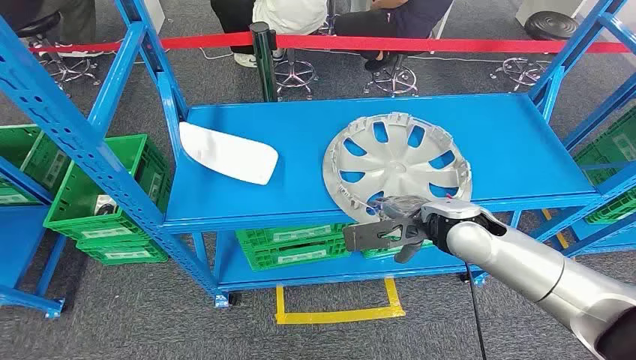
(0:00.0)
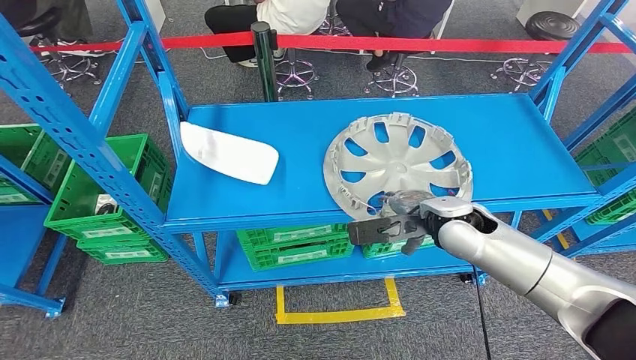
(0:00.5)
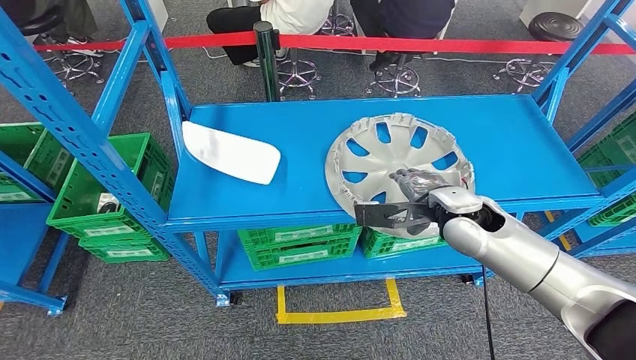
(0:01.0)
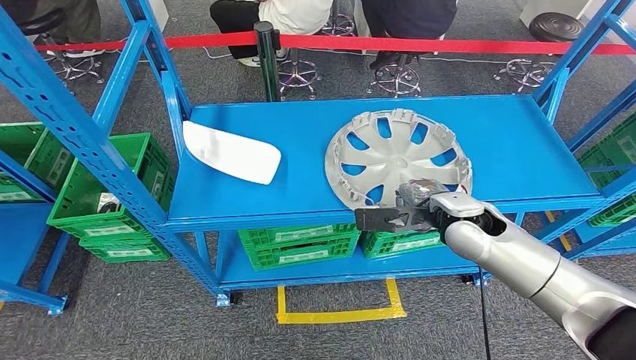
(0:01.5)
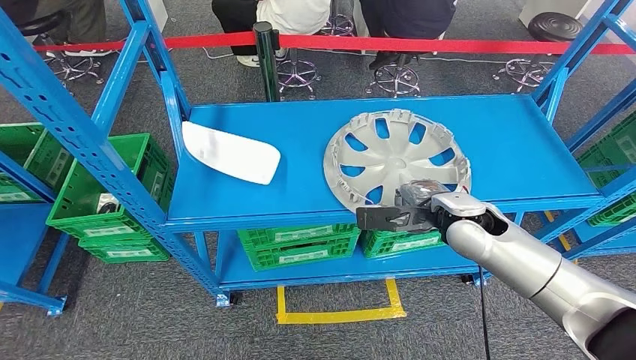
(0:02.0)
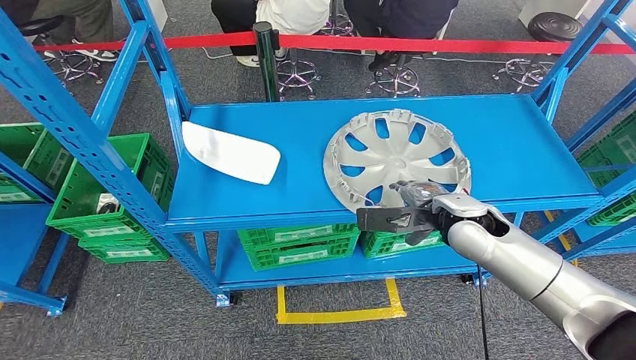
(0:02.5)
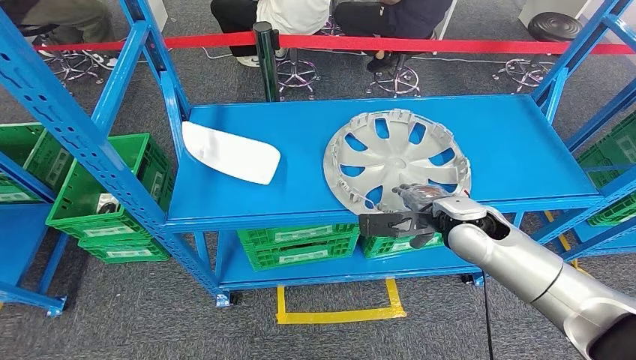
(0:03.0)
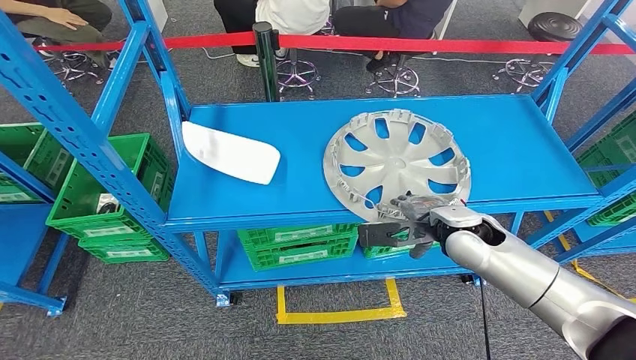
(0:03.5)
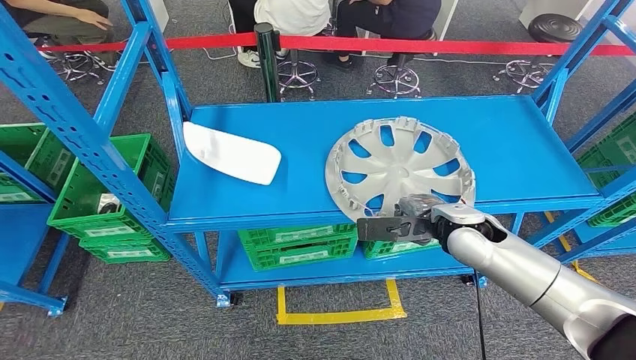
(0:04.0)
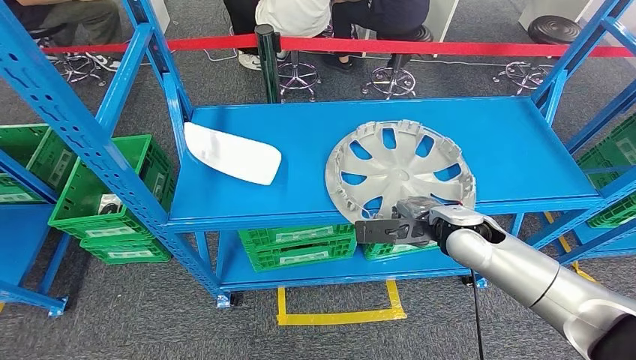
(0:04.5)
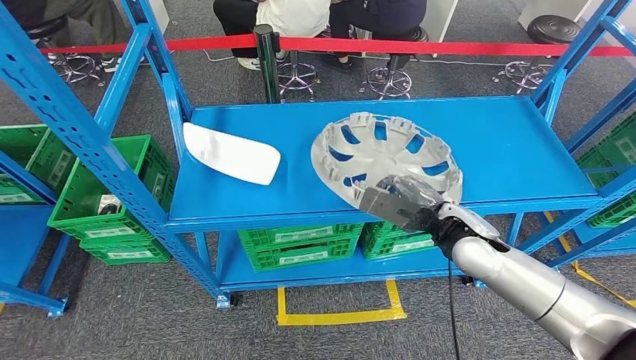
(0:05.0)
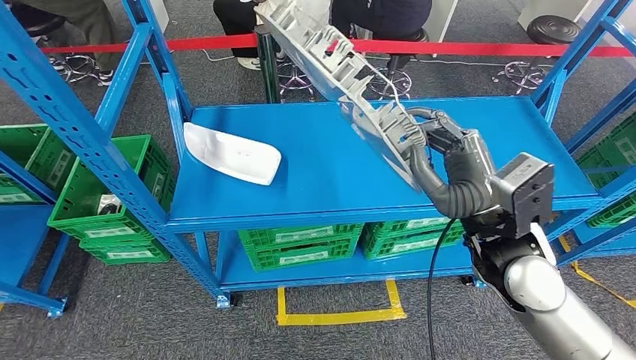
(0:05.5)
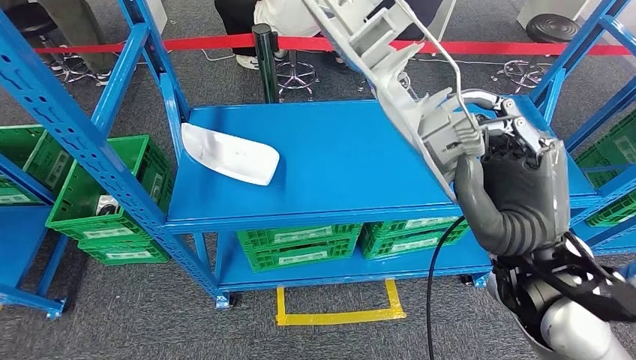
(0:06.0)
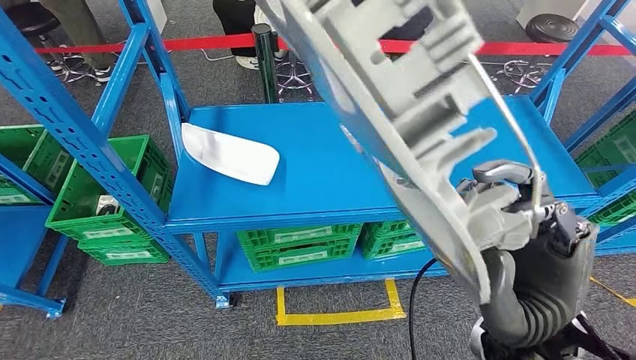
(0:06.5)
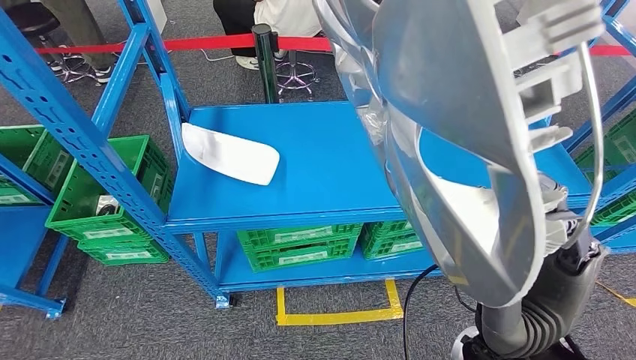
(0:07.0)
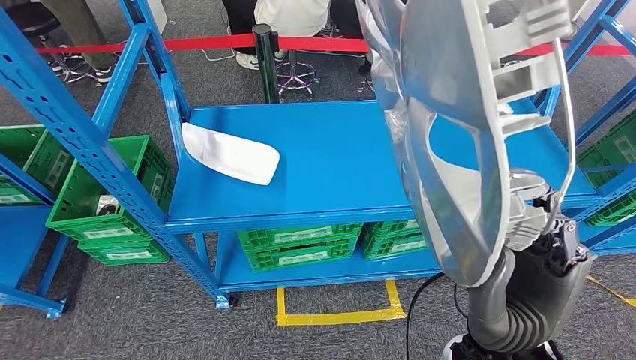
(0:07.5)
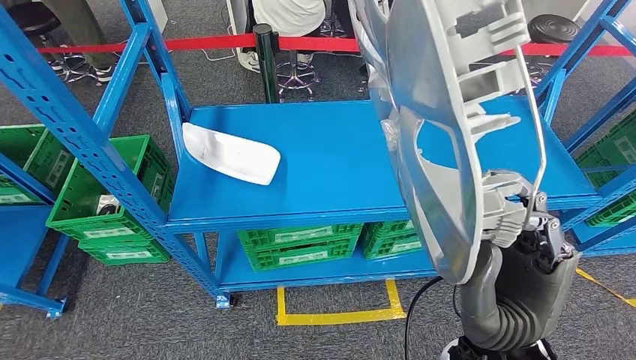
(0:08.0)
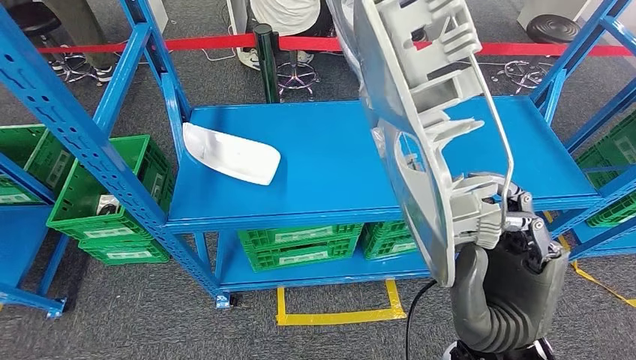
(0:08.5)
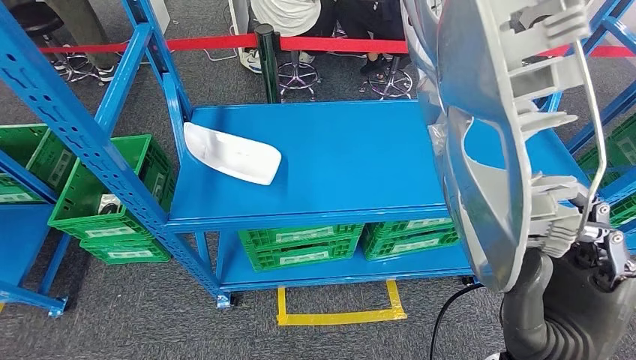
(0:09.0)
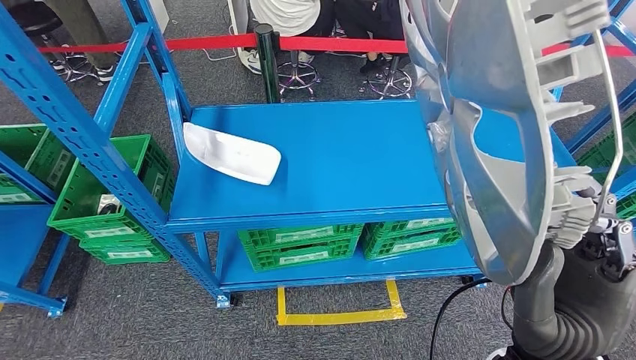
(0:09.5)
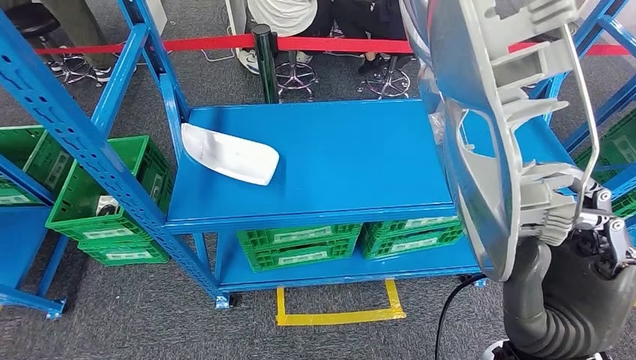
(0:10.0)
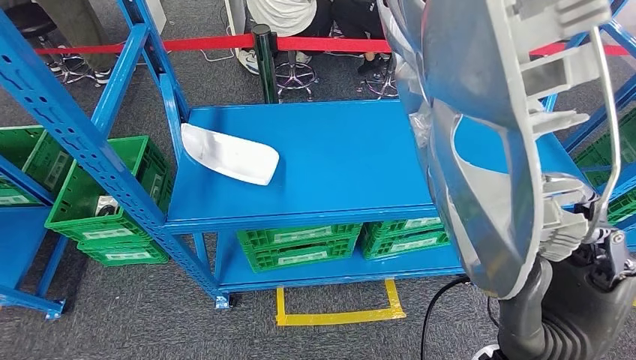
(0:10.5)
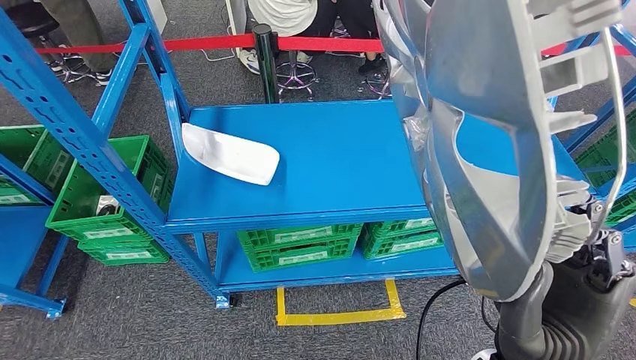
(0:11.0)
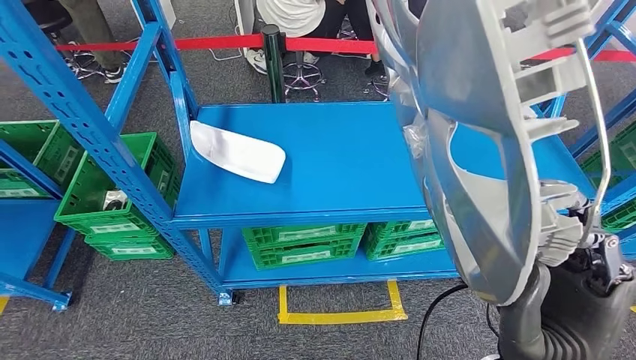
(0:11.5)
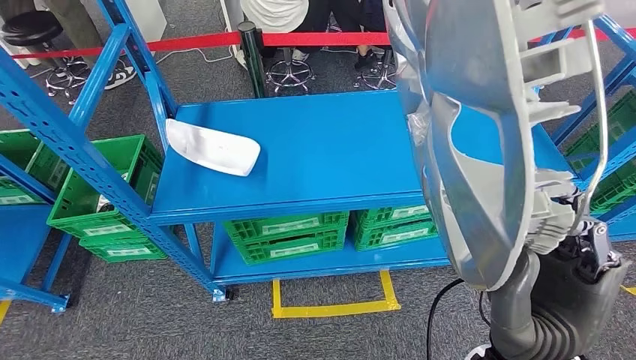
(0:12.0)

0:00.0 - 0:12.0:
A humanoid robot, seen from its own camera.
Step, 0:00.0 - 0:06.5: Pick up the small parts from the shelf.
0:02.0 - 0:04.0: The hands move only a little.

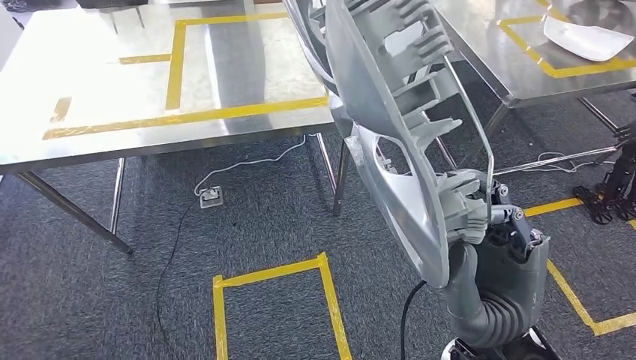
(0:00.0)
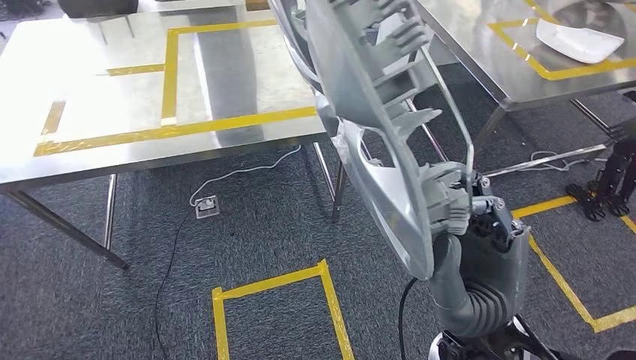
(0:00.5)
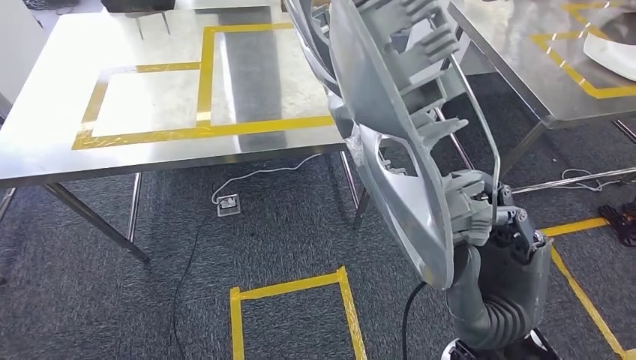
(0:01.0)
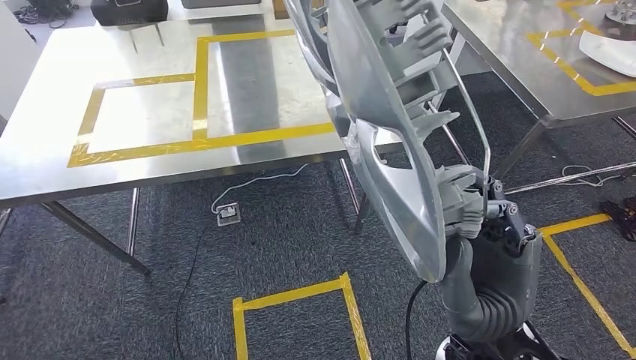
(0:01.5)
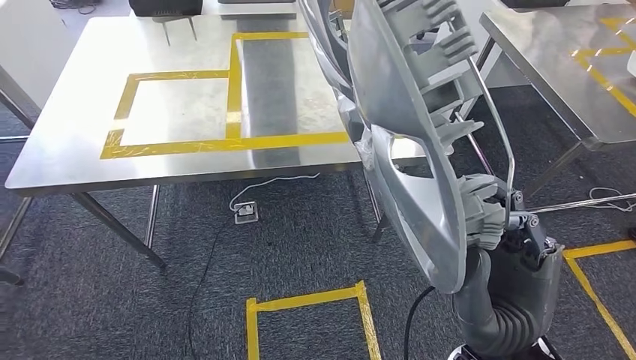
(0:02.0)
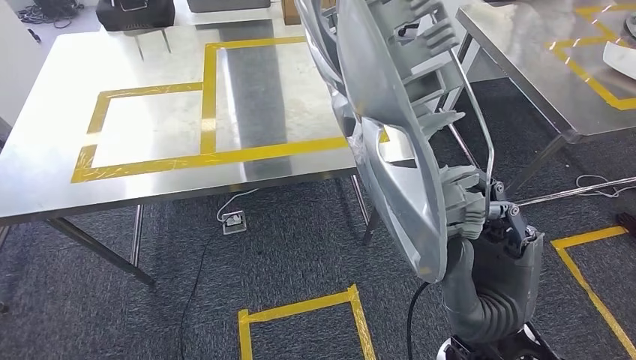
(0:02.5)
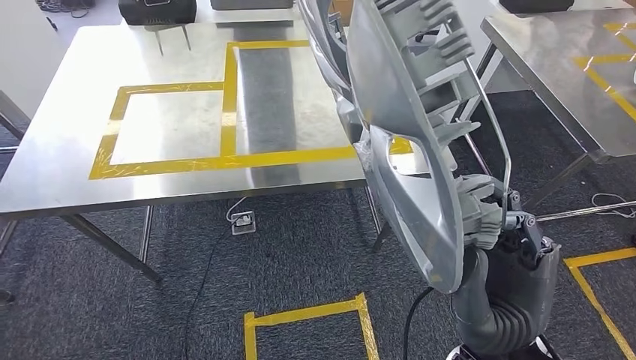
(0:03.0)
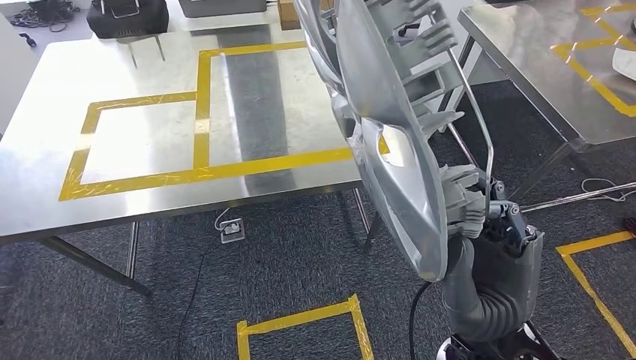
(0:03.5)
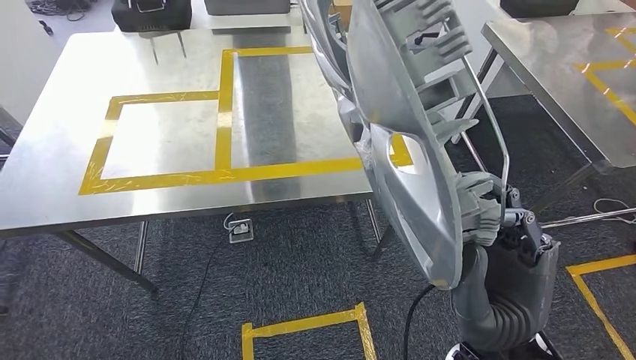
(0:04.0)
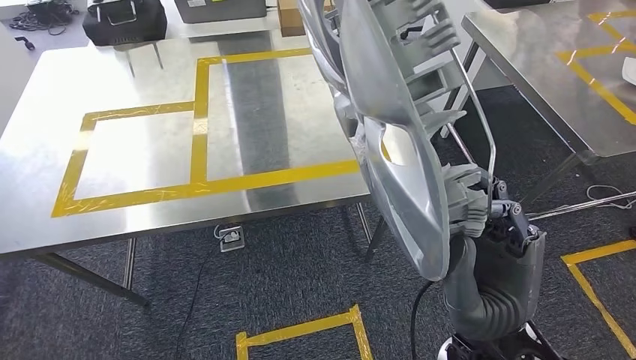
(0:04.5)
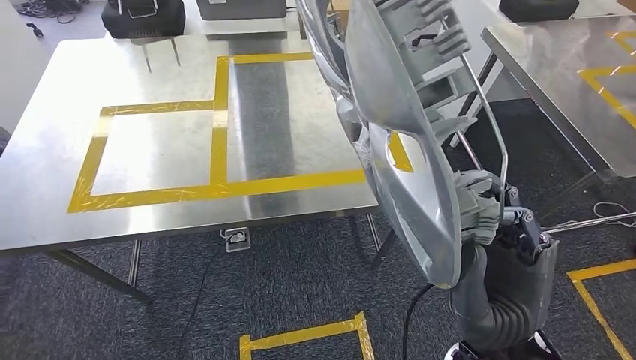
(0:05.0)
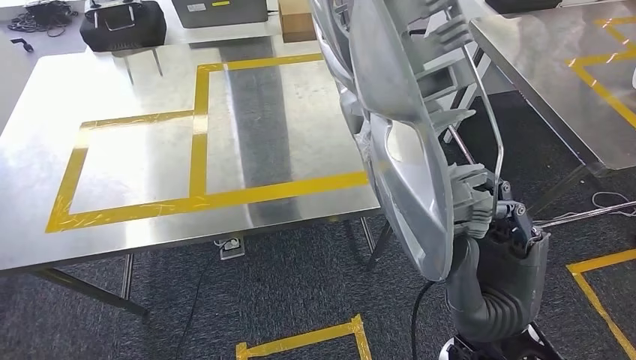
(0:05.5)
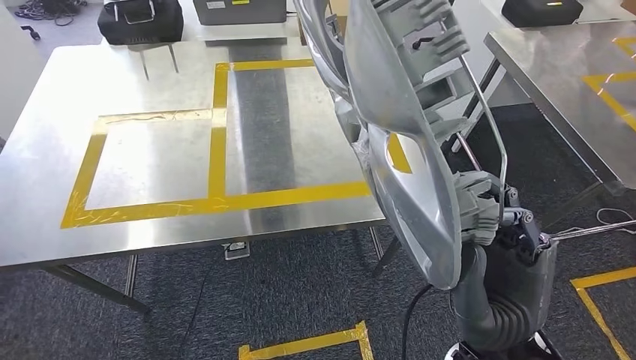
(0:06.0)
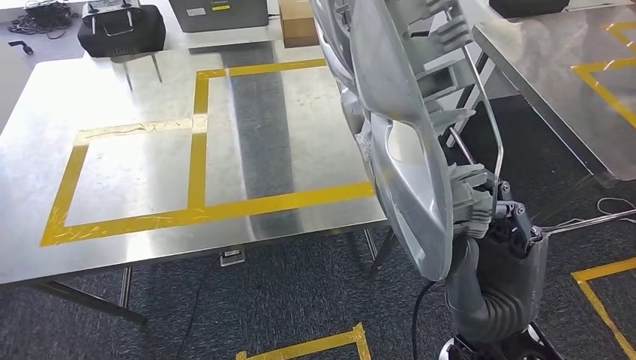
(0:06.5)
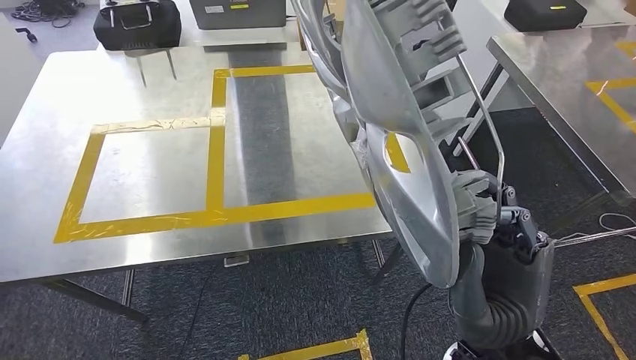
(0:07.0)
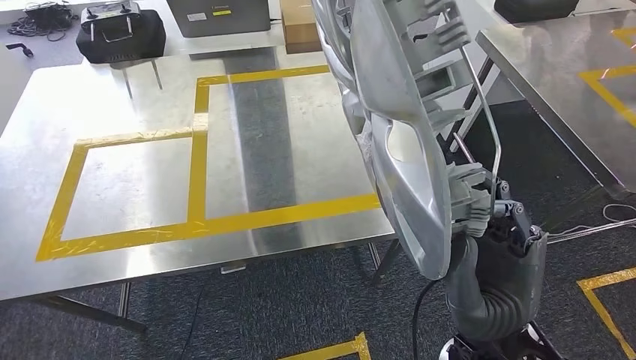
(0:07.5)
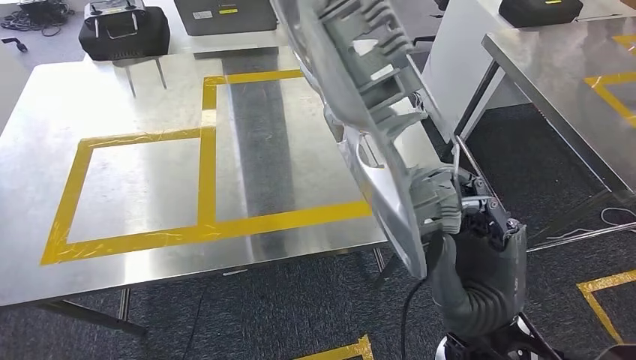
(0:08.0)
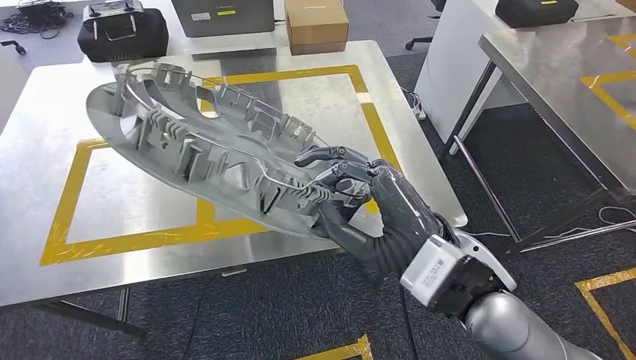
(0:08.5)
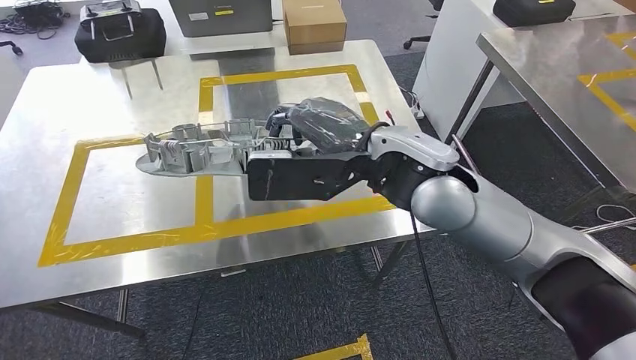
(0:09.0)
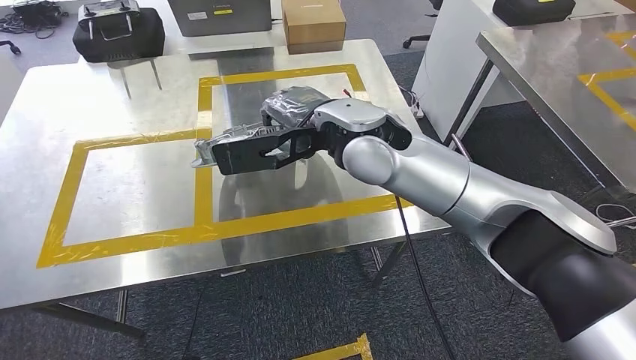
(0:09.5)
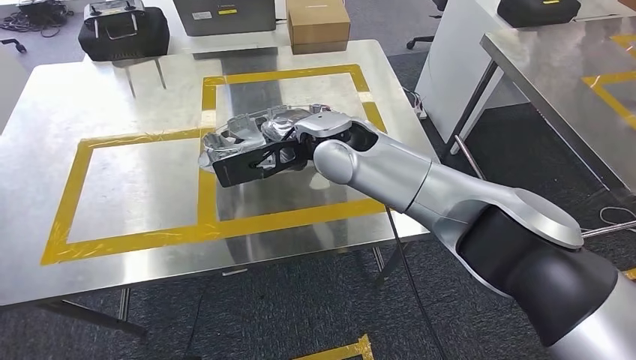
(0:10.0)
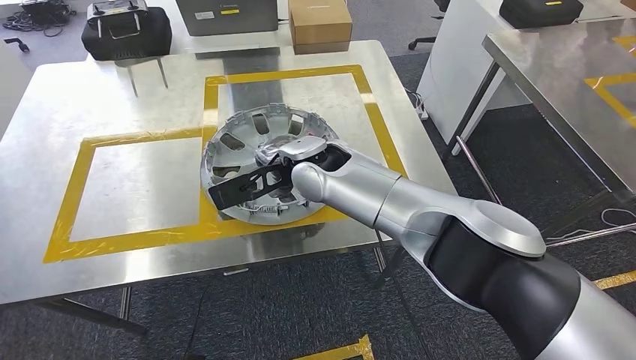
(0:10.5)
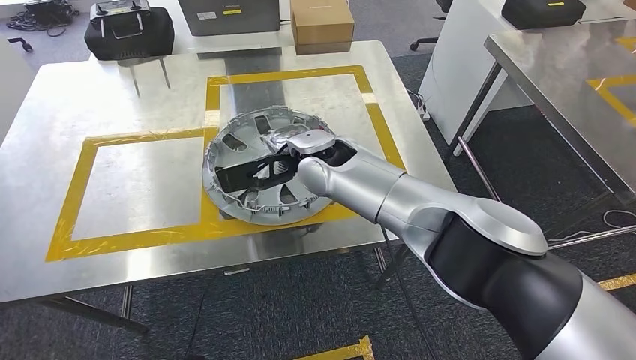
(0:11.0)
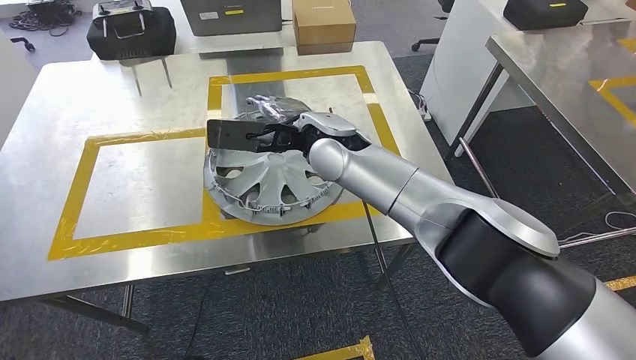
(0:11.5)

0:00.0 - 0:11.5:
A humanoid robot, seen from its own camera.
Step, 0:00.0 - 0:02.5: Move the small parts to the workbench.
